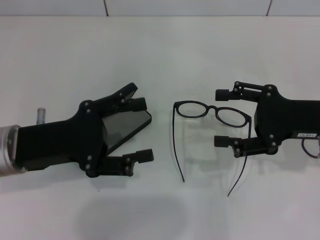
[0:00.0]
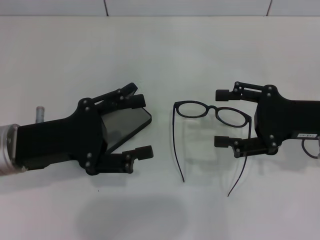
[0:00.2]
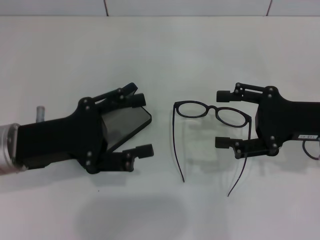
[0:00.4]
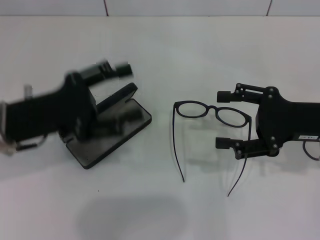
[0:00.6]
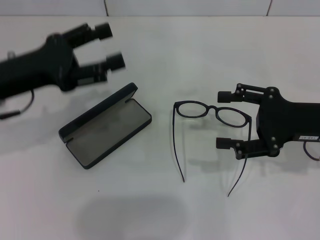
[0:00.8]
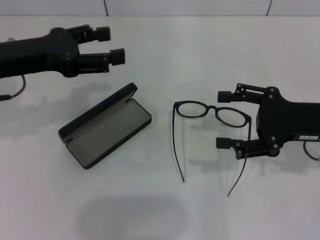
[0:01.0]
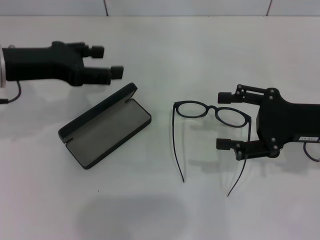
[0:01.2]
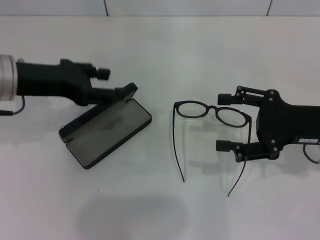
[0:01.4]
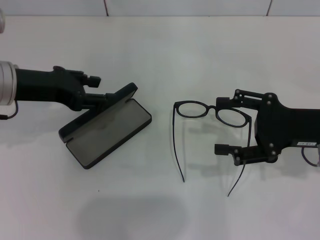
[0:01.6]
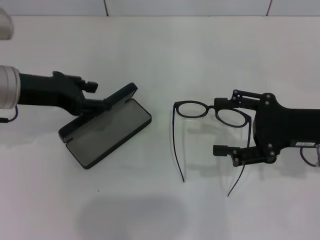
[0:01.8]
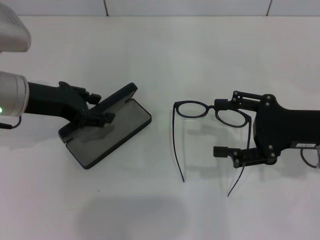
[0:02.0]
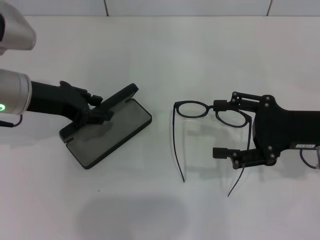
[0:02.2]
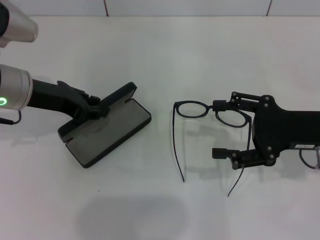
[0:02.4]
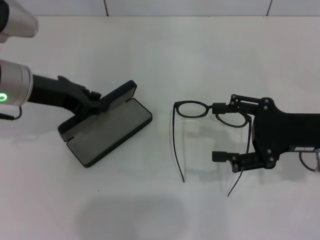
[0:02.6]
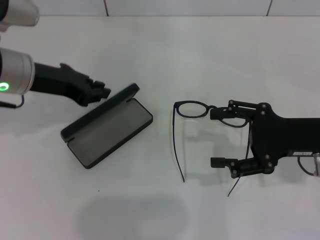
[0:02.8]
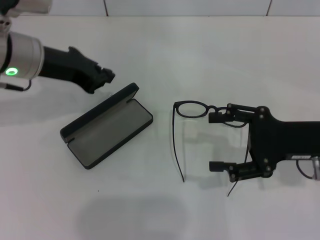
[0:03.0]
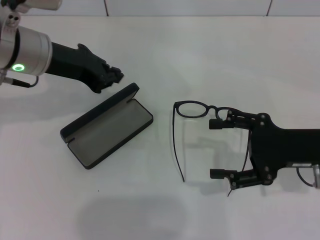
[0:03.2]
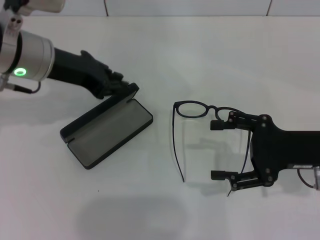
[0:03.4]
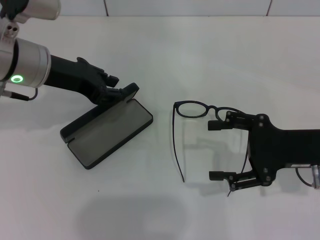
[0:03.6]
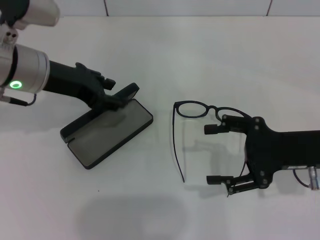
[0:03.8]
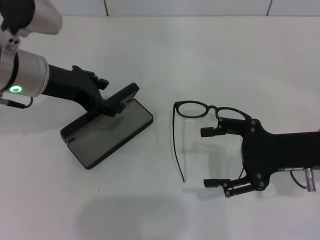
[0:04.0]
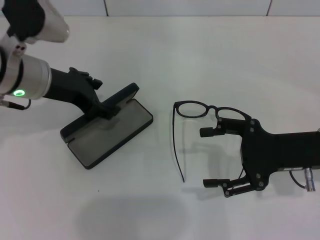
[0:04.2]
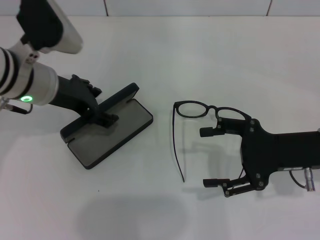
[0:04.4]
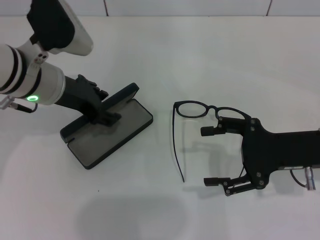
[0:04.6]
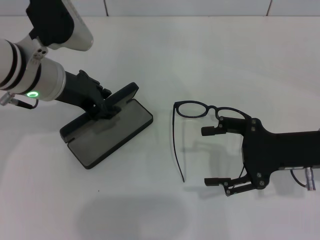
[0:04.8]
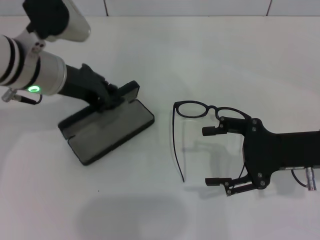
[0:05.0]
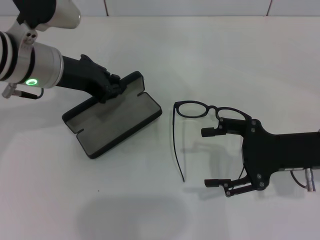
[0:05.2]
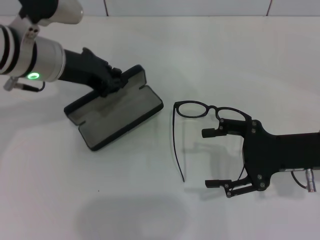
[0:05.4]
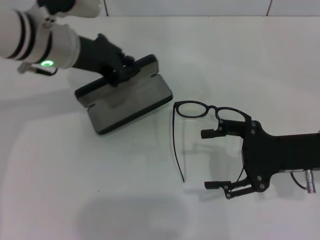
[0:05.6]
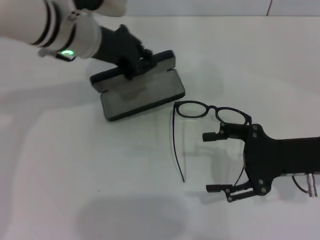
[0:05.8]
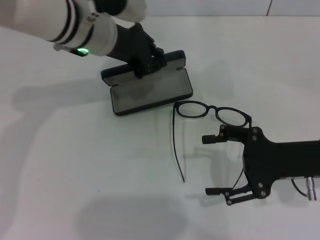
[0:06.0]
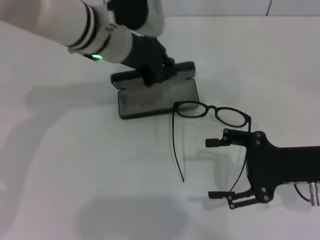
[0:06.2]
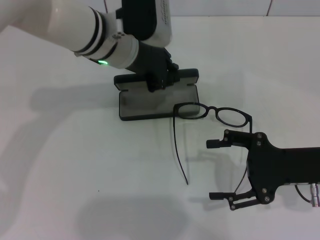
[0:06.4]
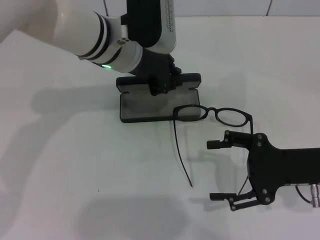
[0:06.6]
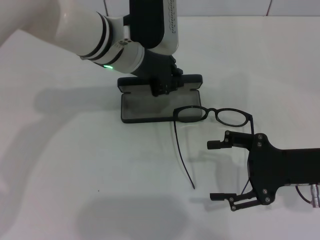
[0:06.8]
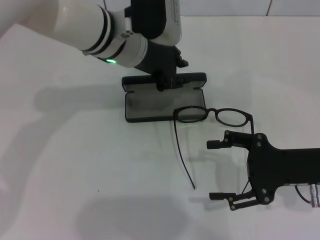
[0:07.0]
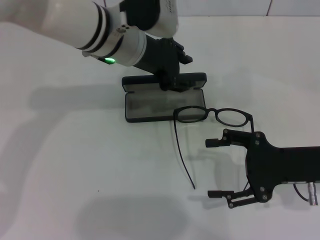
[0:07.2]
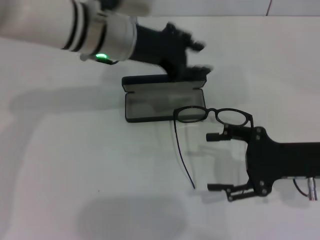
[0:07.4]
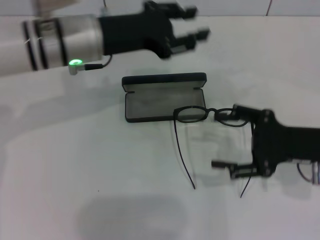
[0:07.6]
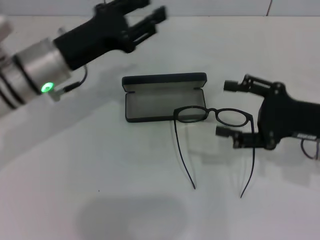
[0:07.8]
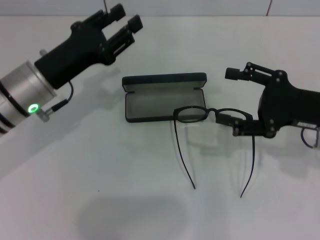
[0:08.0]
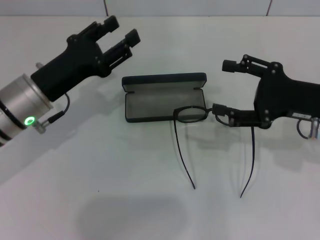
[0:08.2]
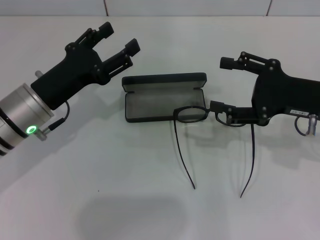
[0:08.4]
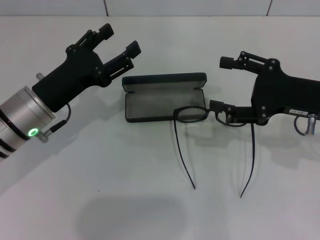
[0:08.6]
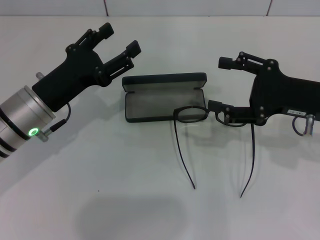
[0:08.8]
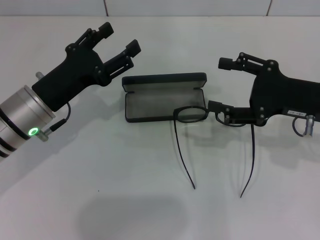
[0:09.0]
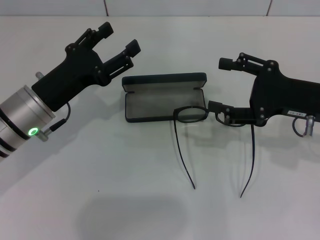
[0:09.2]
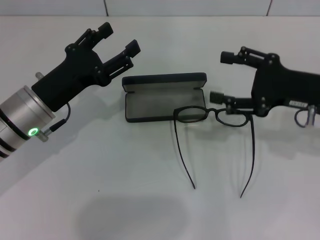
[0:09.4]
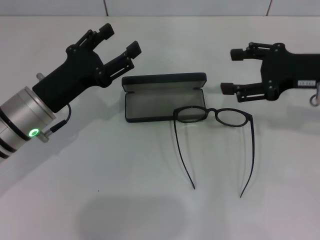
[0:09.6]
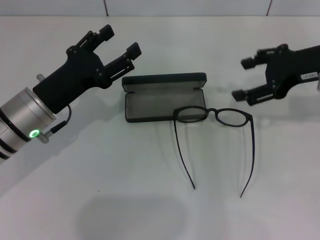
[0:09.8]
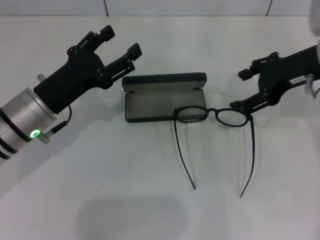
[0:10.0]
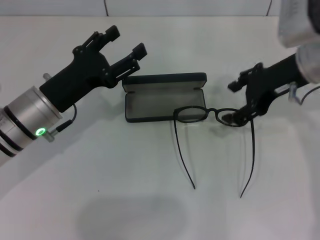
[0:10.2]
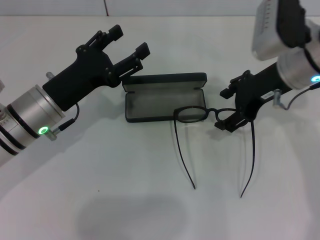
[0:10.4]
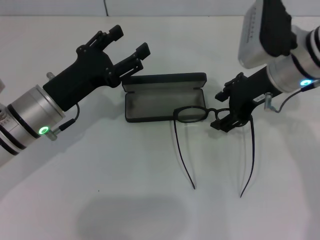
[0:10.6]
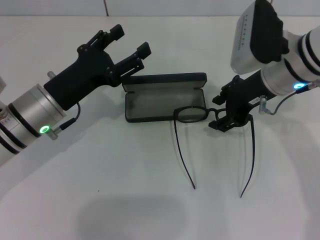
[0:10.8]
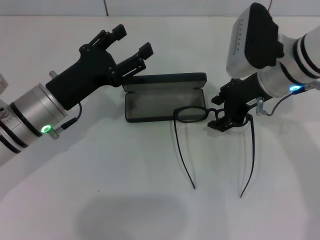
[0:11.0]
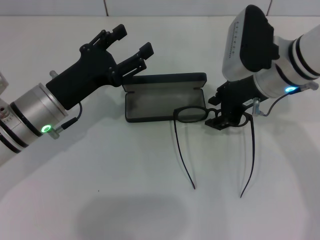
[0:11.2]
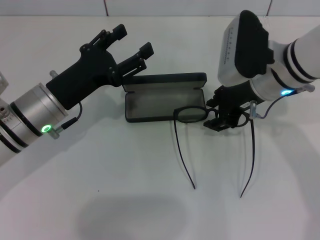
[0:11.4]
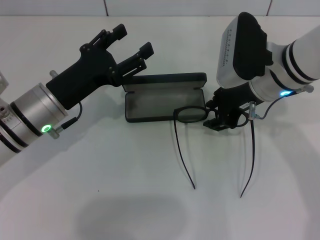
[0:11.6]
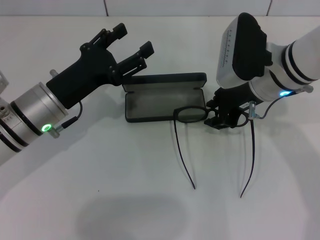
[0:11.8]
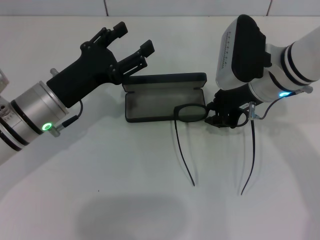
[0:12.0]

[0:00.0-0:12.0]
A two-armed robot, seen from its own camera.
Step, 0:00.0 to 0:04.8: Grab the glasses case with your left hand.
Step, 0:05.0 to 0:07.2: Place the glasses case in the center of the table with your left hand.
0:00.0 to 0:01.6: The left gripper travels forward and upward by approximately 10 cm.
0:01.6 to 0:03.0: The left gripper shifts by some 5 cm, and closes.
0:03.0 to 0:04.4: The left gripper opens.
0:04.4 to 0:06.0: The left gripper shifts about 10 cm to the right and forward, and closes its fingers.
0:06.0 to 0:07.6: The left gripper opens its fingers.
0:07.6 to 0:09.0: The left gripper heads downward, backward and to the left, covering about 15 cm, and opens up.
0:09.0 to 0:10.4: The right gripper goes roughly 10 cm to the left, forward and upward.
0:10.4 to 0:12.0: The right gripper closes its fingers.

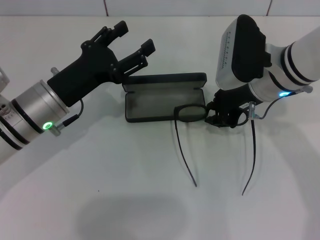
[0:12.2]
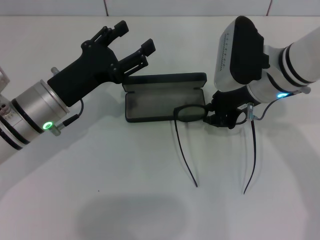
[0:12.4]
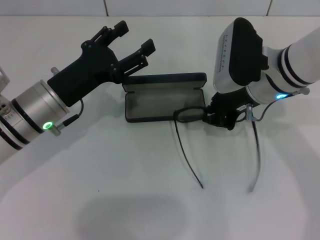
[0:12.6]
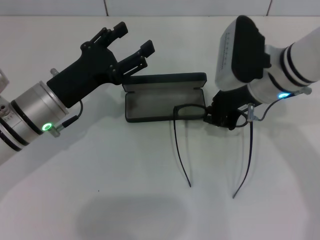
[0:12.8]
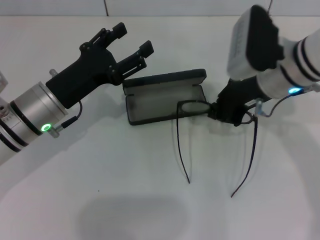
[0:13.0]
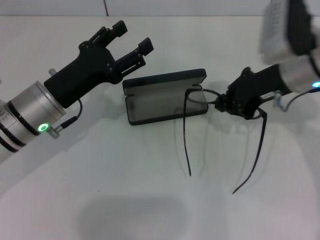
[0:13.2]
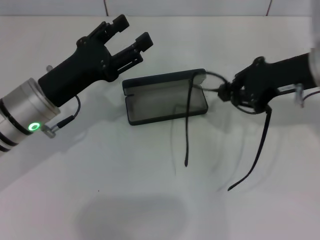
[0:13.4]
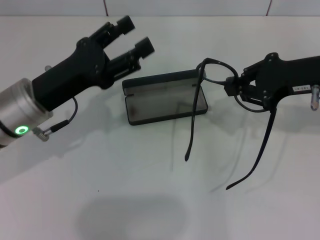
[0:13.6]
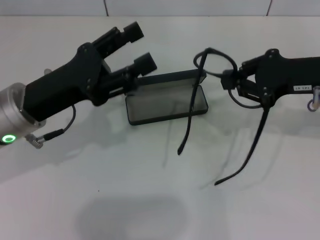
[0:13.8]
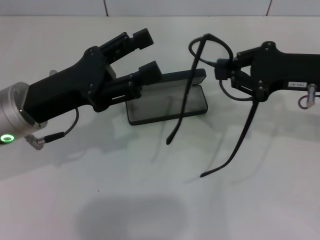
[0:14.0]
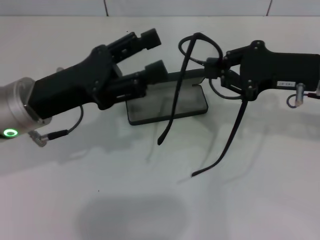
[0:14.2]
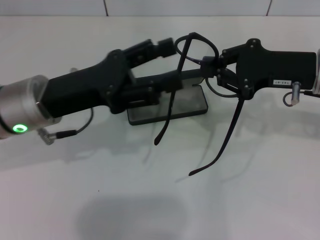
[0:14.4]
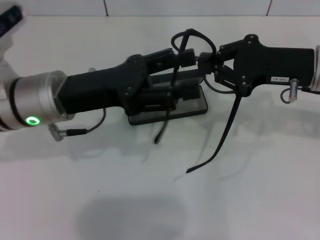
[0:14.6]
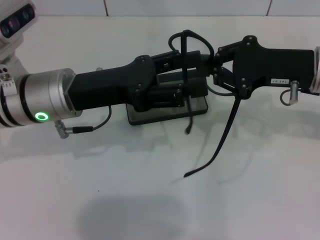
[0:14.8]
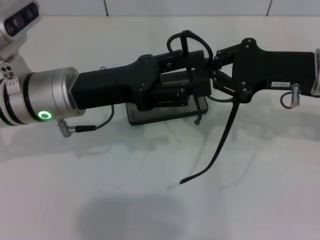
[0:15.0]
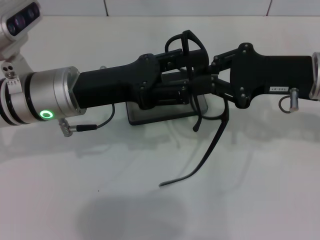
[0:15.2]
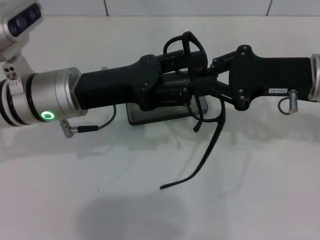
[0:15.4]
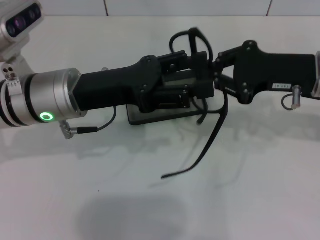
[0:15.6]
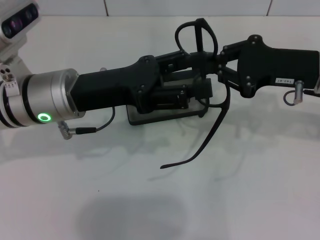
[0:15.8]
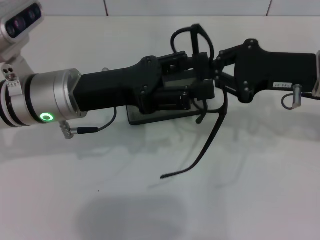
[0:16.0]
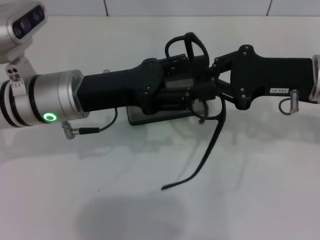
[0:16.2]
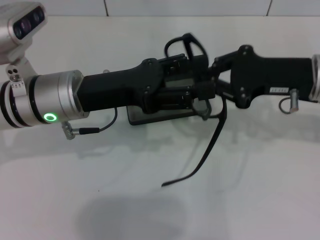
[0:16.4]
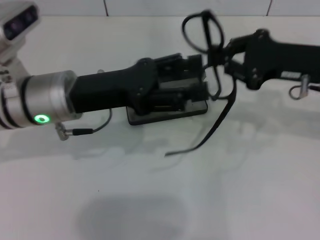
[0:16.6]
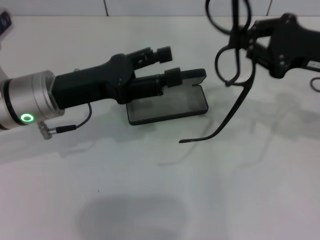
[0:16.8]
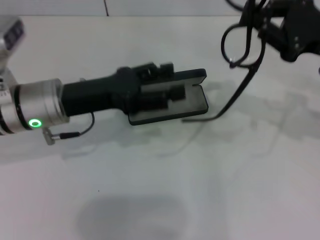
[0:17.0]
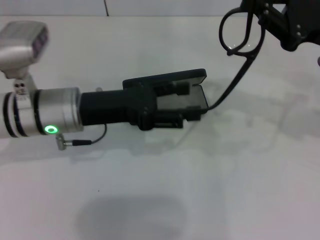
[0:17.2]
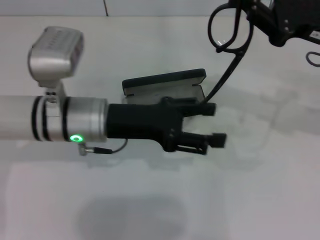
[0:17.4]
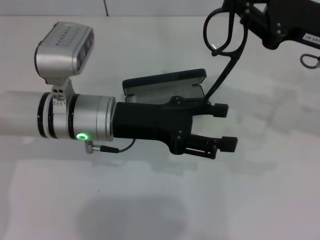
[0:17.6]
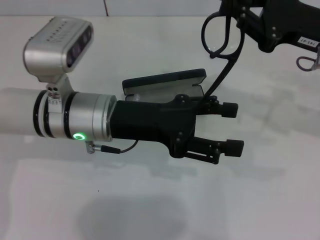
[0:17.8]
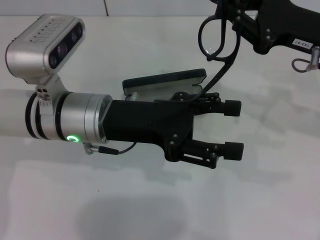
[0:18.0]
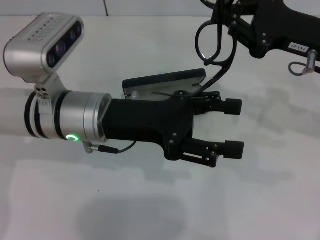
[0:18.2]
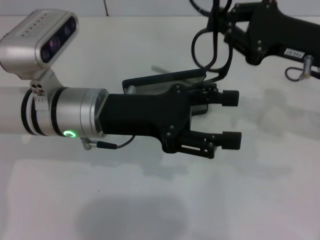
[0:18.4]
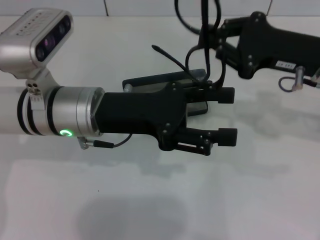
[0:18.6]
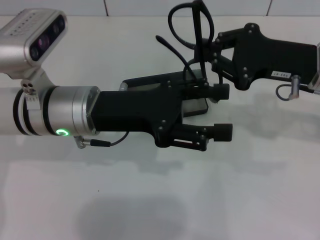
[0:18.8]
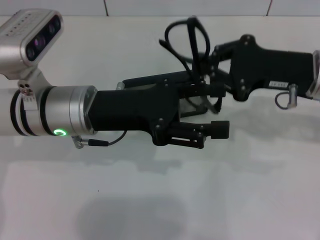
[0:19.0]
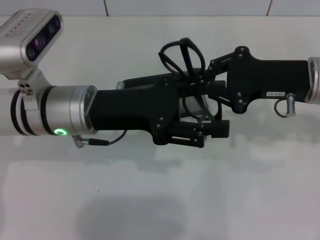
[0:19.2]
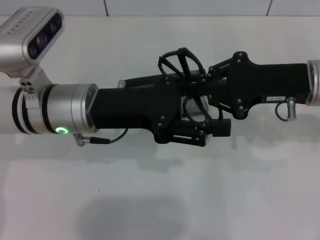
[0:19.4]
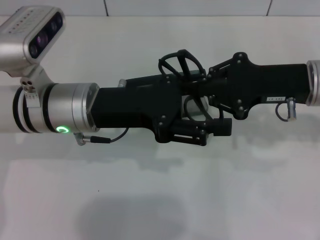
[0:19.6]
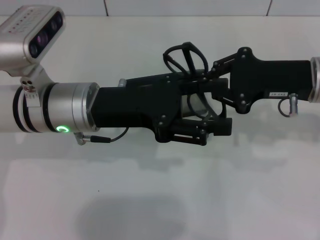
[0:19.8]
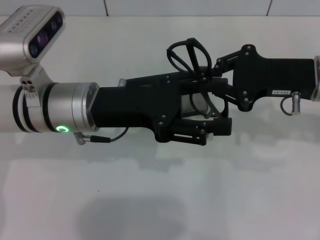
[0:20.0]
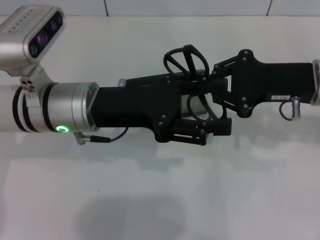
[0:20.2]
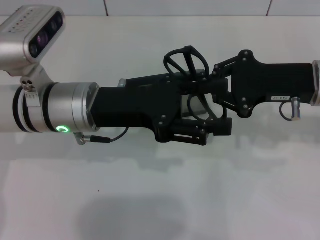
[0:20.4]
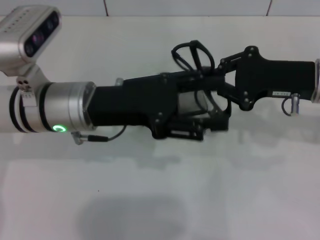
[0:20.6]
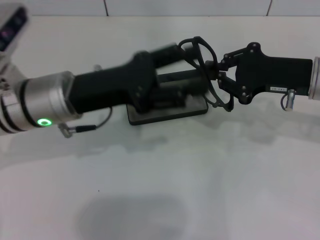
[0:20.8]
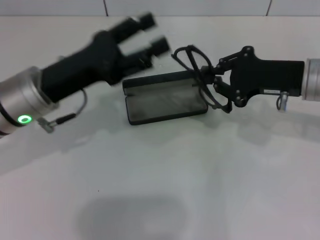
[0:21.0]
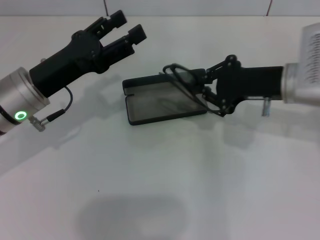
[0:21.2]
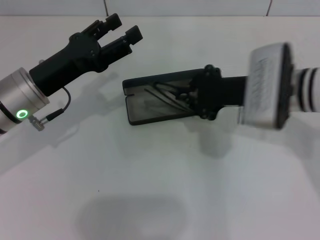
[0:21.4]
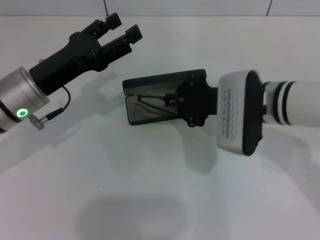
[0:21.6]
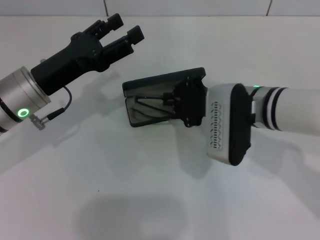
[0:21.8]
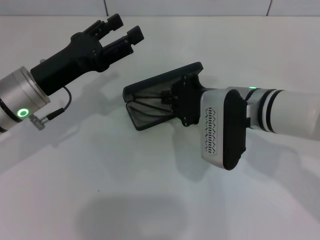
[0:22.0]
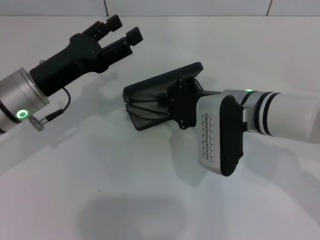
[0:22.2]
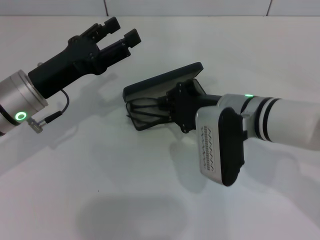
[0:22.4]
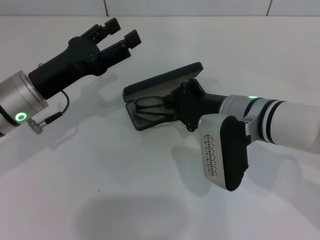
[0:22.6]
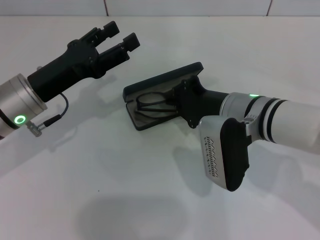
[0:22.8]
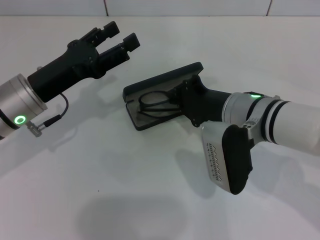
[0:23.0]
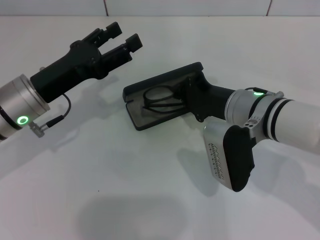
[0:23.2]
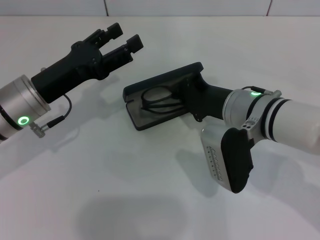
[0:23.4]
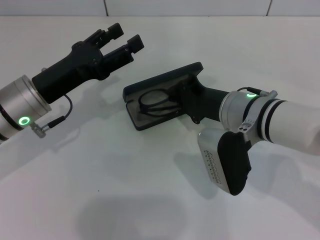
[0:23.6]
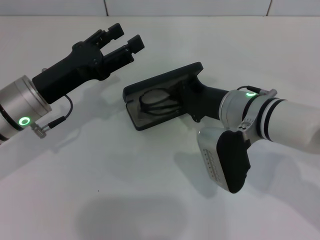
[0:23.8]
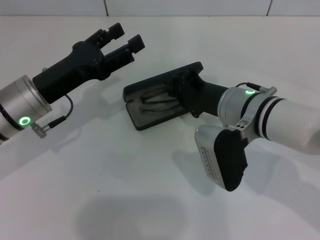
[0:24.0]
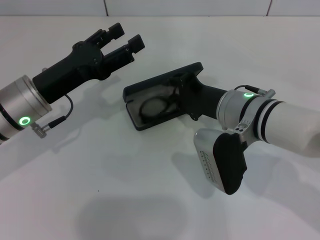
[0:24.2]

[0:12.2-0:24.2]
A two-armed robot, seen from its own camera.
Step, 0:13.0 to 0:20.2: Fold the frame with your left hand.
0:12.2 to 0:13.8: The right gripper shifts approximately 10 cm to the right.
0:13.8 to 0:15.2: The left gripper changes place by roughly 5 cm.
0:15.2 to 0:16.6: The grippers stay close to where they were, moving slightly.
0:19.8 to 0:21.2: The left gripper shifts about 5 cm to the left.
0:21.2 to 0:22.6: The right gripper moves to the left, about 10 cm.
0:22.6 to 0:24.2: The grippers move only a little.
